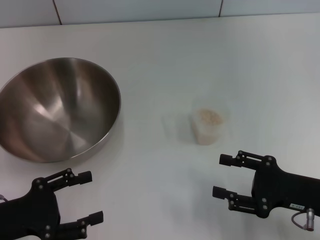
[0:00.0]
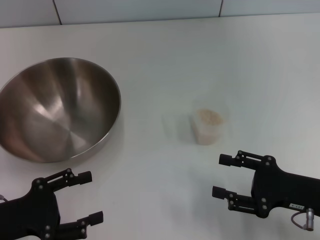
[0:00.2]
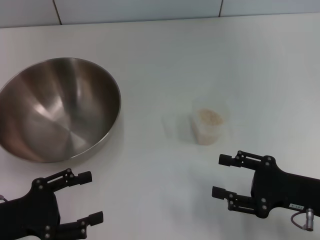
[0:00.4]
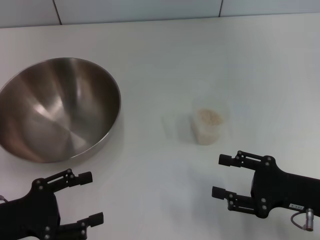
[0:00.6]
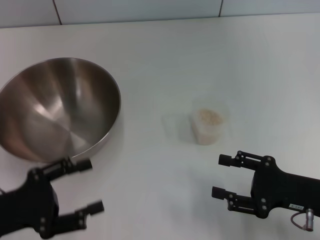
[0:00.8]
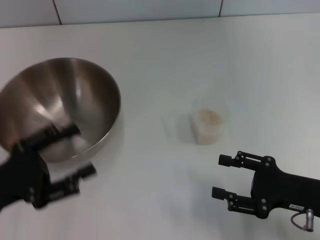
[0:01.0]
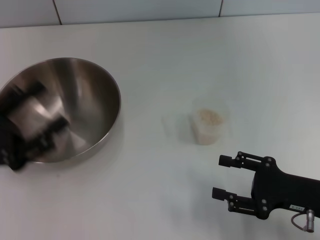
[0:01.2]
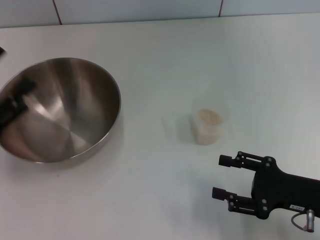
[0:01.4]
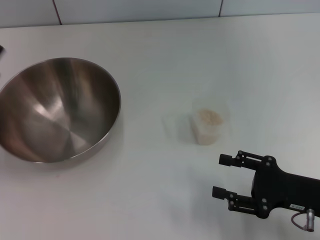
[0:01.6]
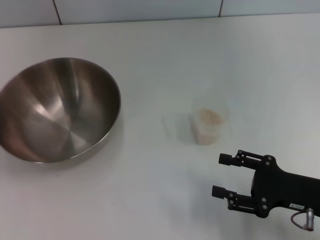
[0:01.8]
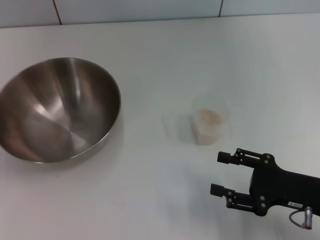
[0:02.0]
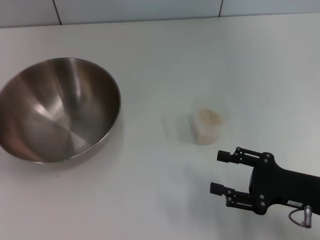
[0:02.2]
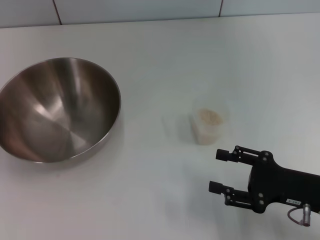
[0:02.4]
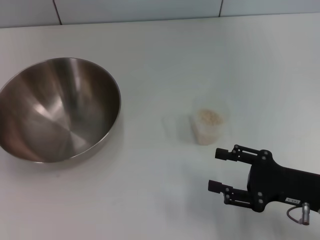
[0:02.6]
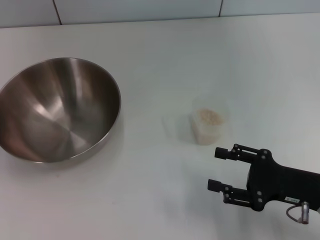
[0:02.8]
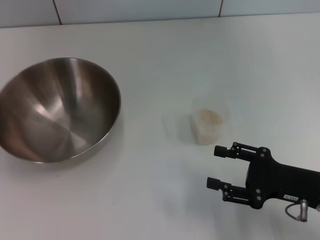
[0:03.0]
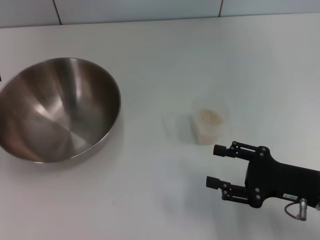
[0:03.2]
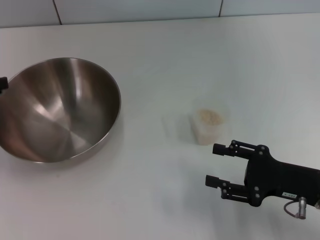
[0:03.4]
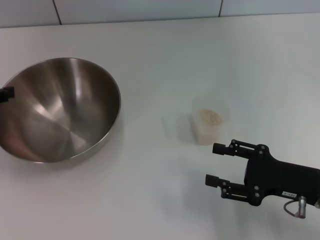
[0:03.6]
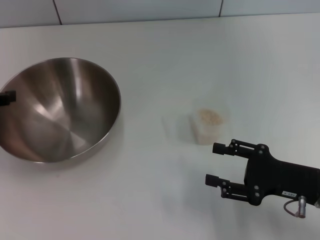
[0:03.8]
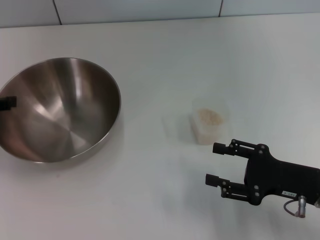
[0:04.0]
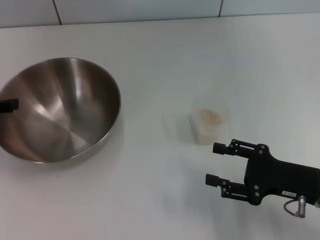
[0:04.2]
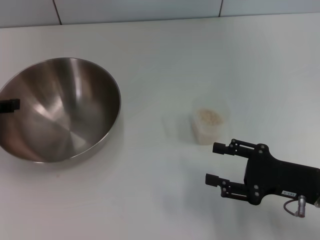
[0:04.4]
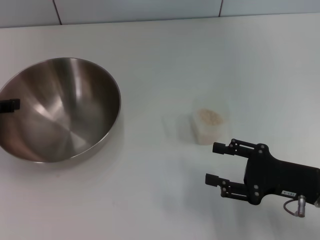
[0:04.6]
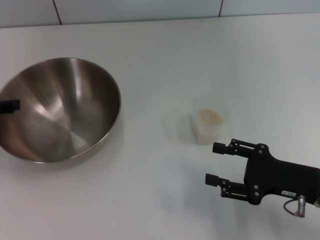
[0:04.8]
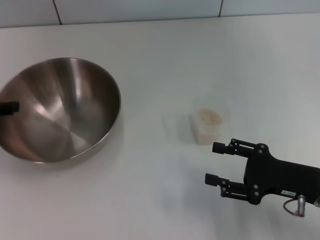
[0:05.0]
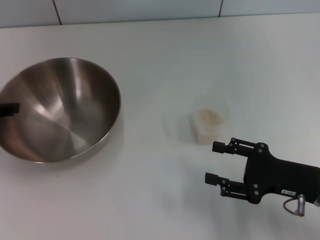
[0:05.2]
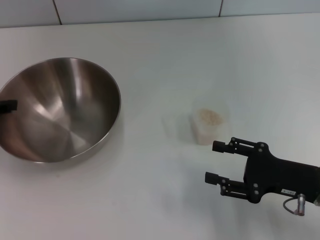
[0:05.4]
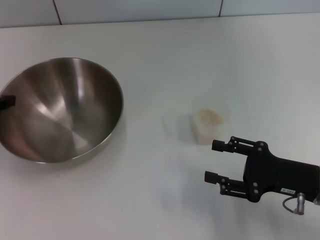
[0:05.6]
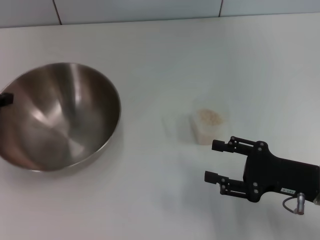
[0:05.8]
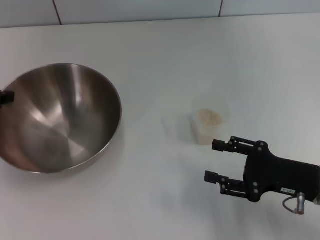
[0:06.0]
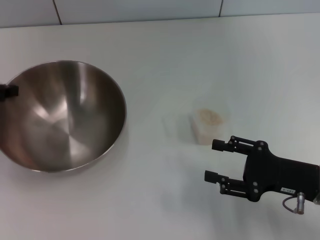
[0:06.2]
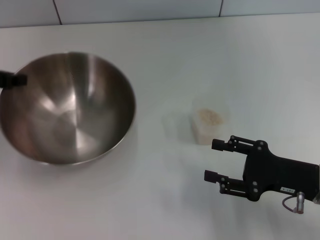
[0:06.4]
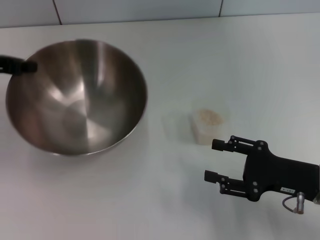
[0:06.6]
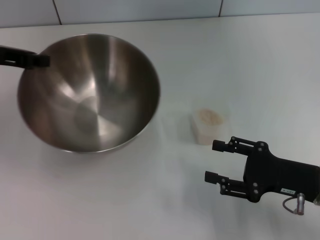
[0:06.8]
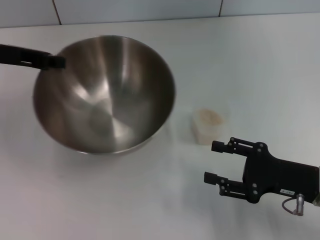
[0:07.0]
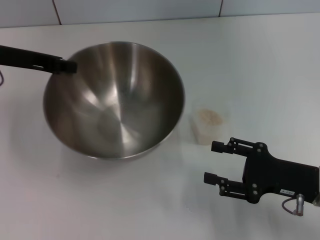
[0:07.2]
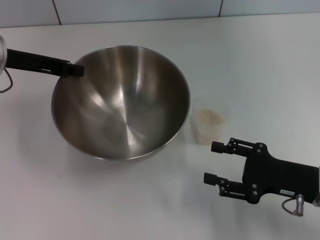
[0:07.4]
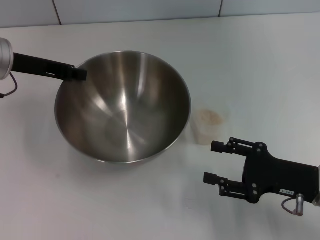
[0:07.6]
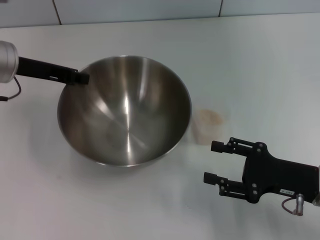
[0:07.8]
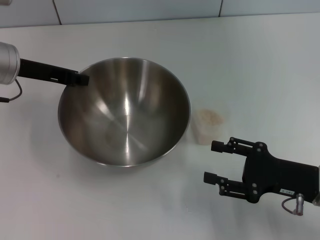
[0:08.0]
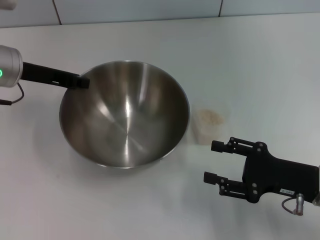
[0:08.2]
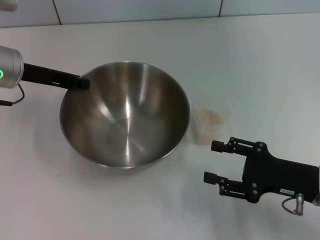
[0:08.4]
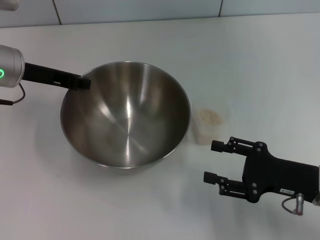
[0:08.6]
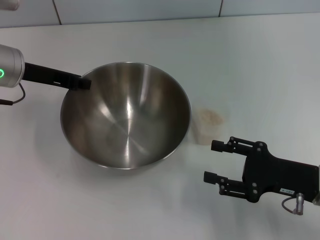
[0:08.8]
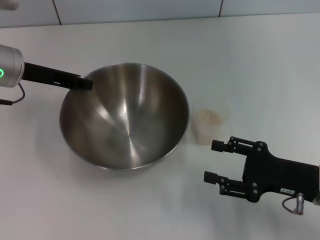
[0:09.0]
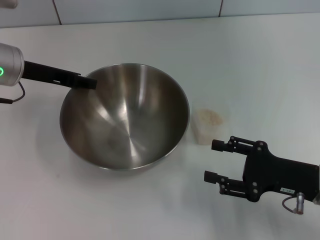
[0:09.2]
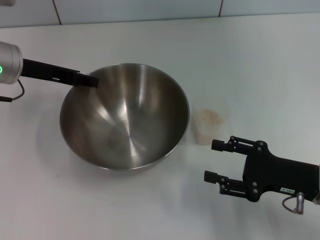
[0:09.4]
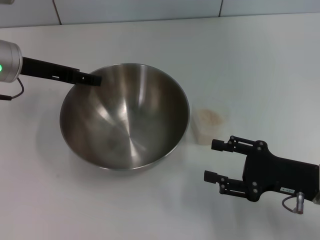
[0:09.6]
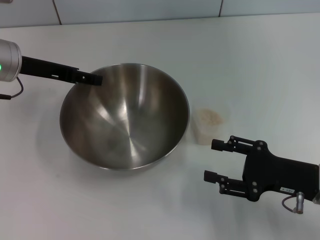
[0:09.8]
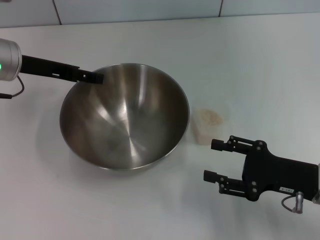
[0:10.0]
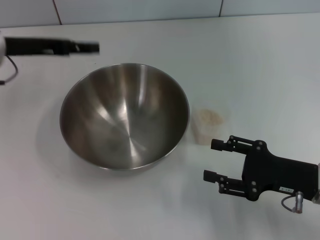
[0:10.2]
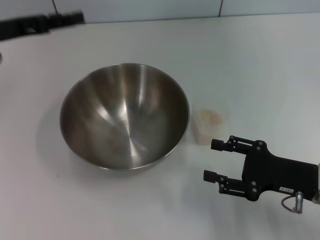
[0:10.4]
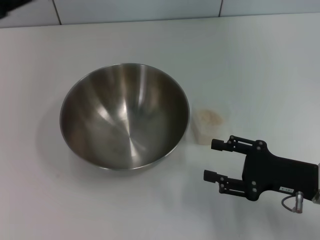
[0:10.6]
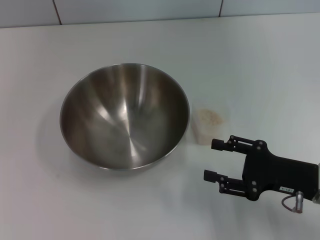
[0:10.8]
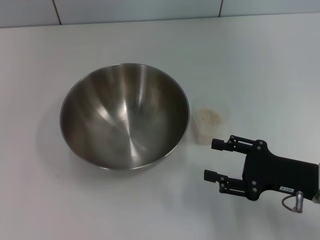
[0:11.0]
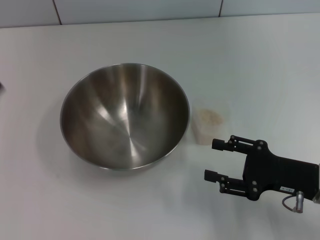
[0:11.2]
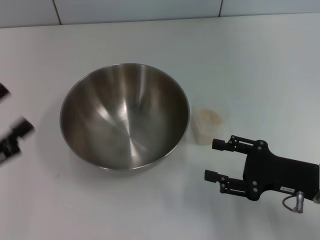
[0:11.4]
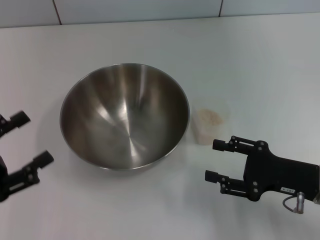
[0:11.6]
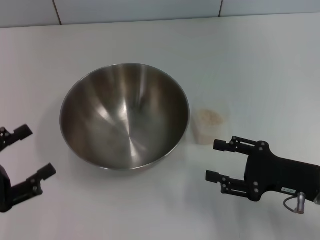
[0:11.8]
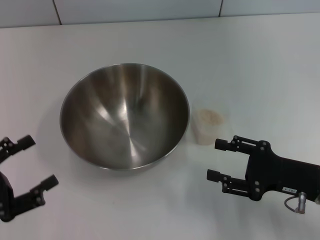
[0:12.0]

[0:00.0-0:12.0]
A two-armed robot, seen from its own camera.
Task of the whole recording: Place the bowl in the middle of the table with one hand and pour the rice from the grain cup into it with the other hand.
Step, 0:00.0 to 0:06.8: Pick up the bowl with the left gripper.
Step, 0:07.0 to 0:10.4: Place the bowl in the center of view with the left gripper.
0:00.0 to 0:01.6: The left gripper is displaced upward by about 5 cm.
0:04.4 to 0:06.0: The left gripper closes its fingers.
0:06.0 to 0:07.6: The left gripper moves to the right, some 10 cm.
0:07.6 to 0:09.0: There are only small adjustments of the grippers.
0:09.0 to 0:10.4: The left gripper changes place by some 5 cm, and opens up.
0:10.4 to 0:12.0: The left gripper goes approximately 25 cm backward and downward.

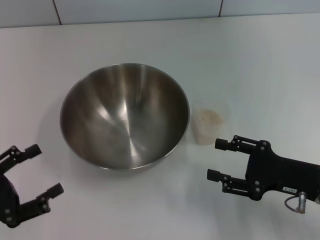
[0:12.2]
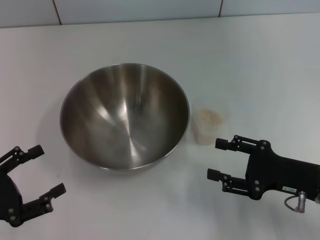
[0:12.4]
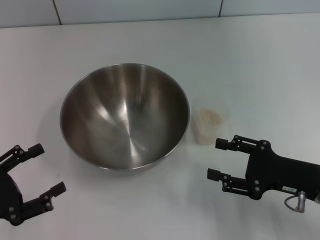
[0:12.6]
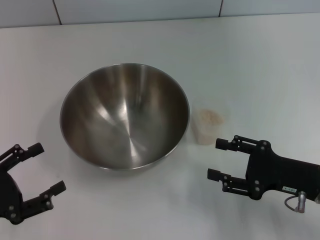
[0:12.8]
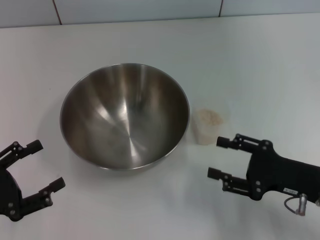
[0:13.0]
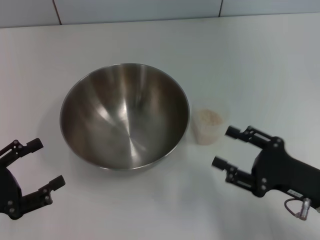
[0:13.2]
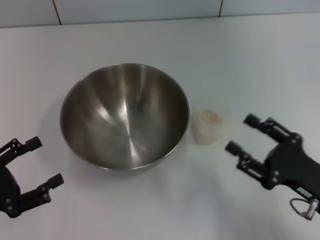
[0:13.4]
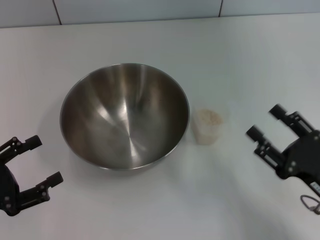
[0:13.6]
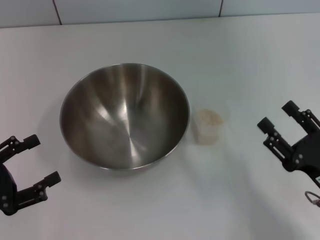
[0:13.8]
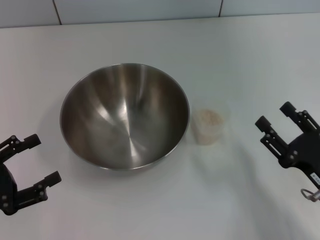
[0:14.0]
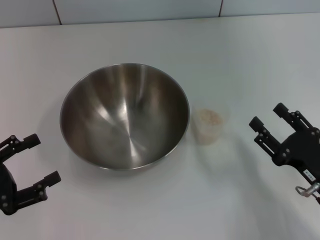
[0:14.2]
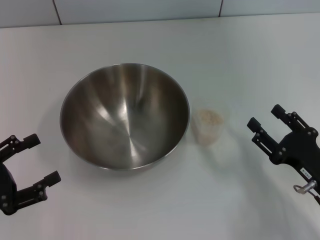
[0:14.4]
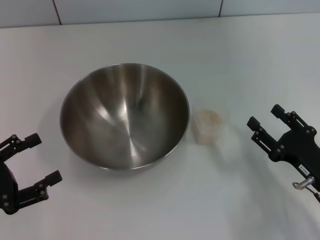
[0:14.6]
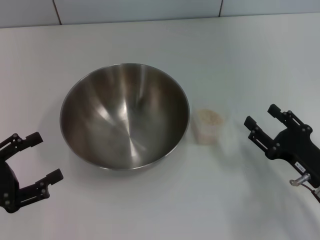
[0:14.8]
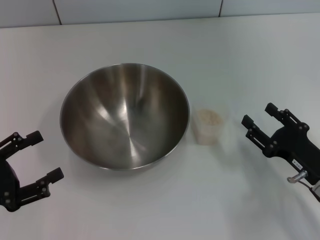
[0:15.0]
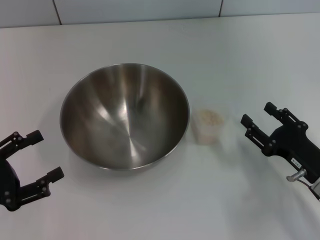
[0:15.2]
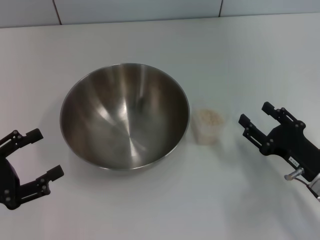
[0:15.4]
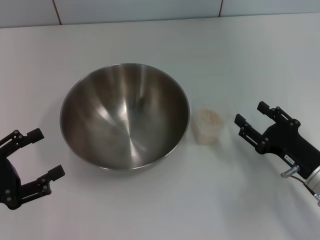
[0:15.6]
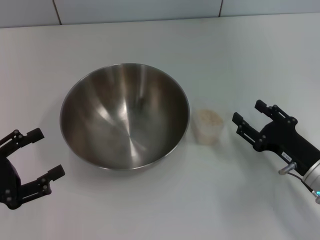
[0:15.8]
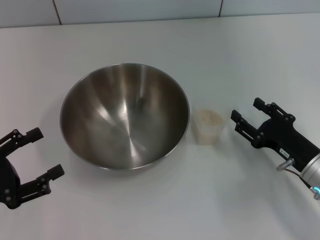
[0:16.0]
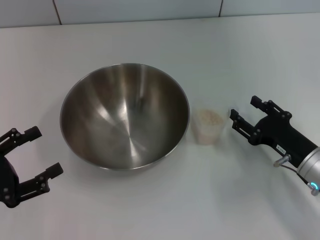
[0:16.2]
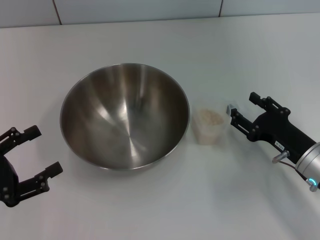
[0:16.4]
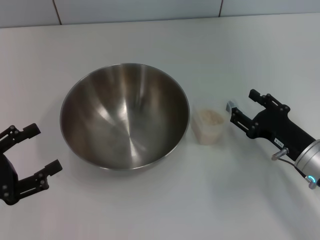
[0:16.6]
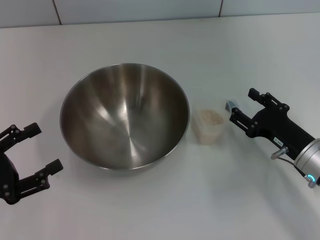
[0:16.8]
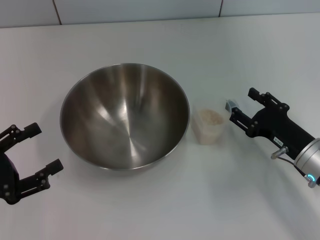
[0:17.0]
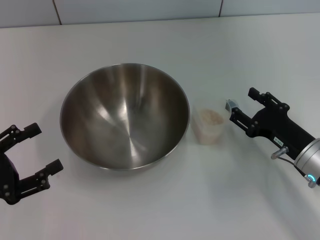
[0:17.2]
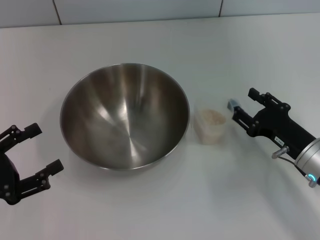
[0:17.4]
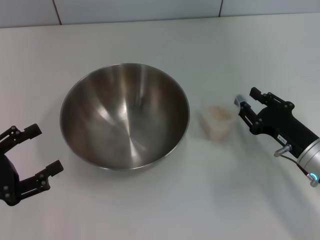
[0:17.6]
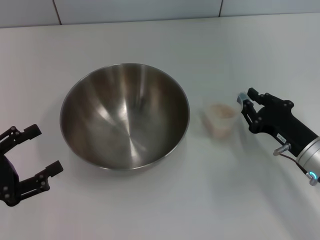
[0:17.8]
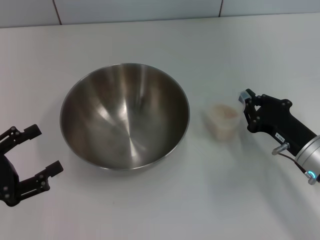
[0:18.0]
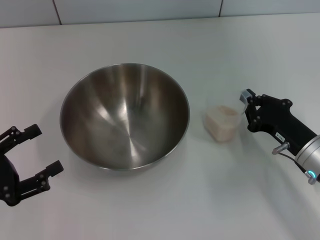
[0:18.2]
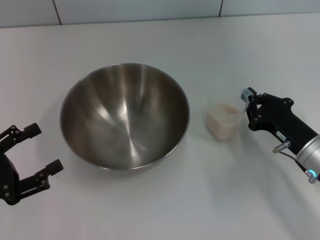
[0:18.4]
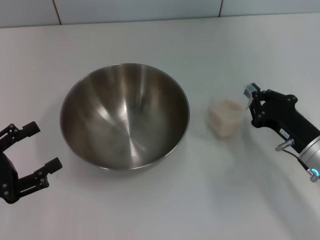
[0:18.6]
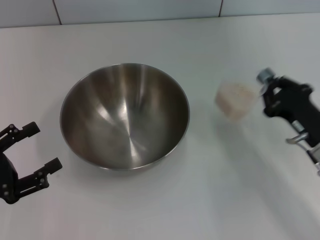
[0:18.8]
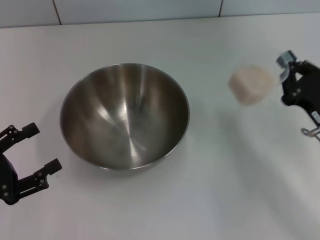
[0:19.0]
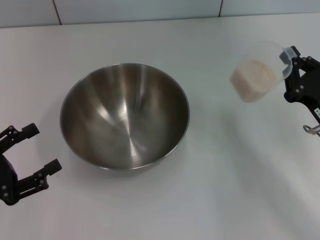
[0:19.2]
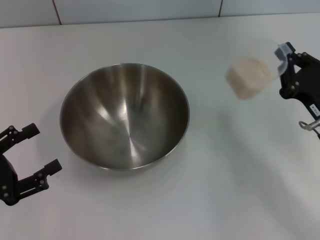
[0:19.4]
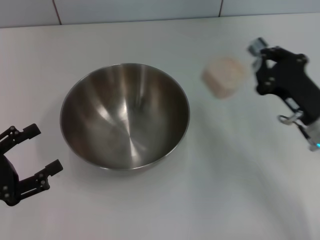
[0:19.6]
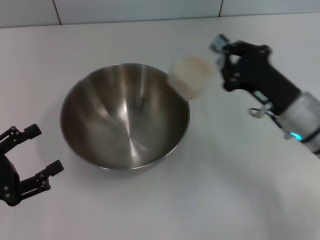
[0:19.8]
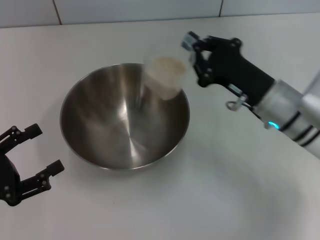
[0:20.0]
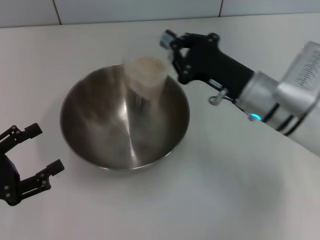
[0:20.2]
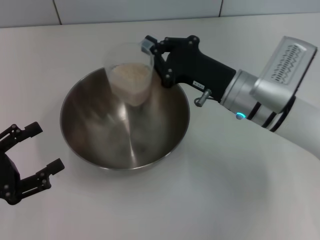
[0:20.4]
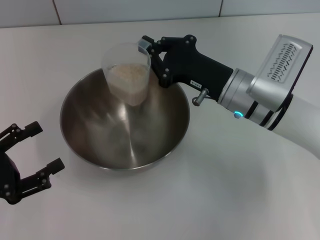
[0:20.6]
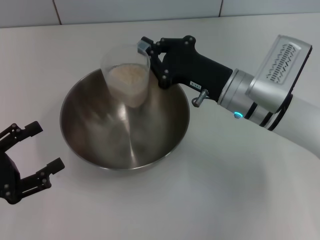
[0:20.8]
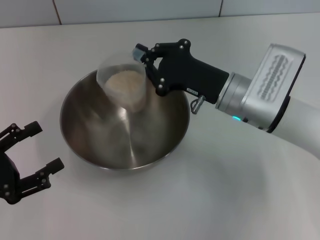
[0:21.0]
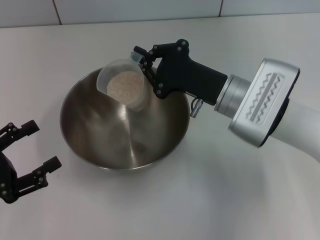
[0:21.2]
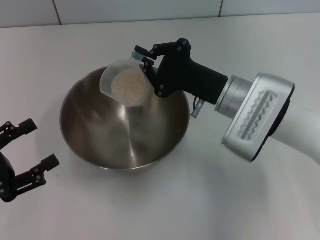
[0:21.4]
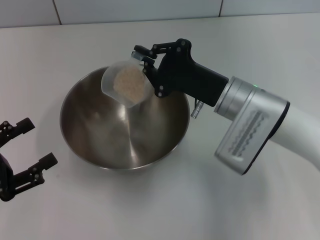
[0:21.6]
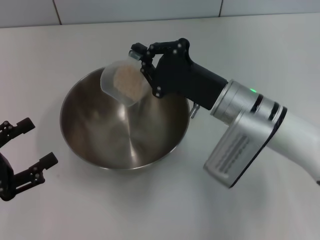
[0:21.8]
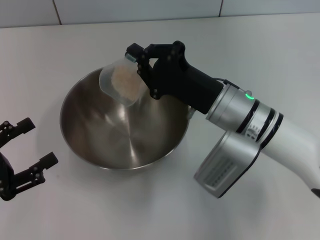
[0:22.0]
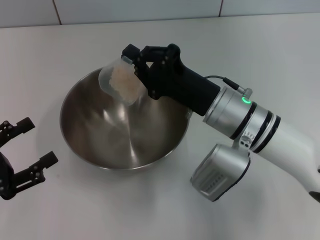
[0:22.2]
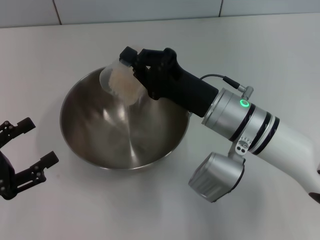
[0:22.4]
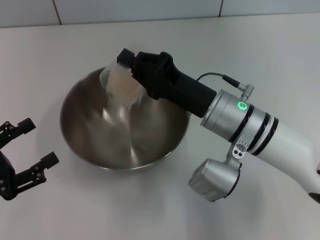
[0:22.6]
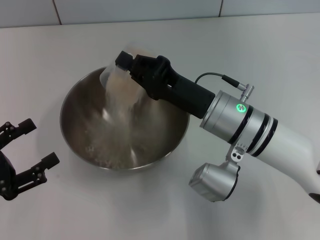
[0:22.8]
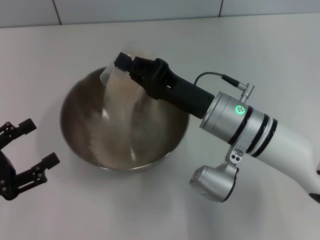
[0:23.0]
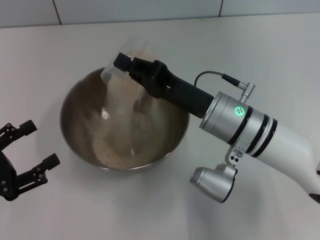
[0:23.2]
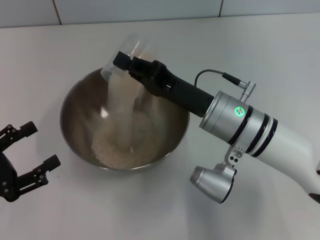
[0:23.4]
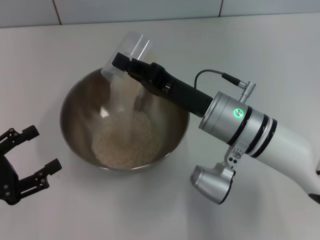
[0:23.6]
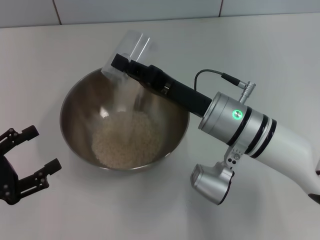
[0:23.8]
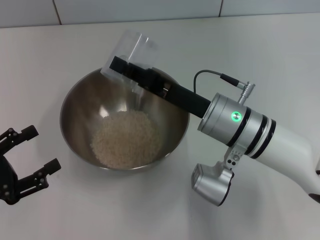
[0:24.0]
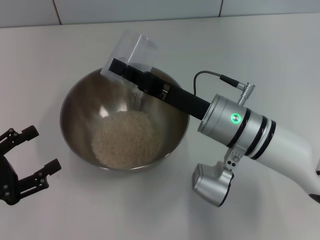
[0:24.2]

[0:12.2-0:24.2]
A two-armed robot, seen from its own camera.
Task of the whole recording: Place the bowl in the middle of the table with one hand and pour the rice from the grain cup into it with the other hand.
Step, 0:12.2 to 0:19.2: Pick up the cup with rice in it with the right gripper.
0:12.2 to 0:13.8: The right gripper is displaced backward by roughly 5 cm.
0:13.8 to 0:15.2: The right gripper moves some 5 cm.
0:15.2 to 0:16.6: The grippers move only a little.
0:16.6 to 0:18.2: The right gripper closes.
0:18.2 to 0:19.8: The right gripper shifts roughly 5 cm upward.
0:19.8 to 0:21.2: The right gripper heads to the left, covering approximately 10 cm.
